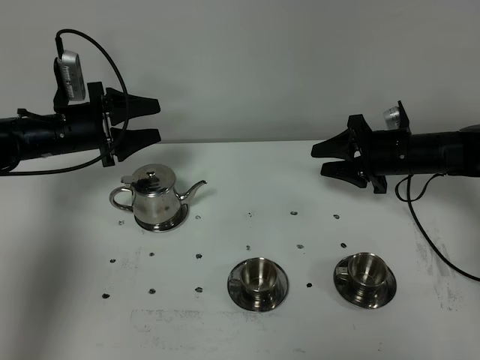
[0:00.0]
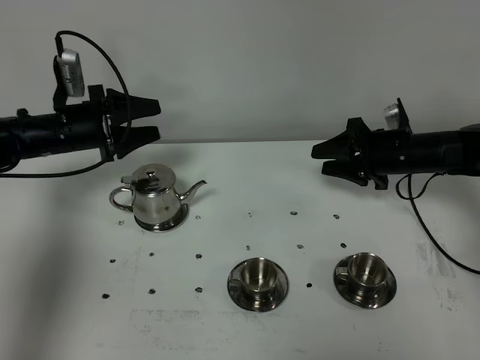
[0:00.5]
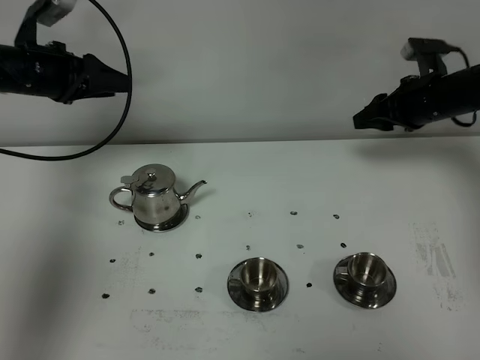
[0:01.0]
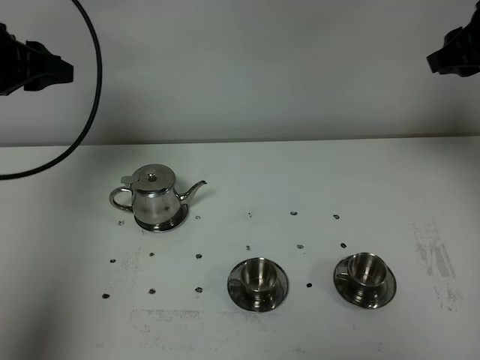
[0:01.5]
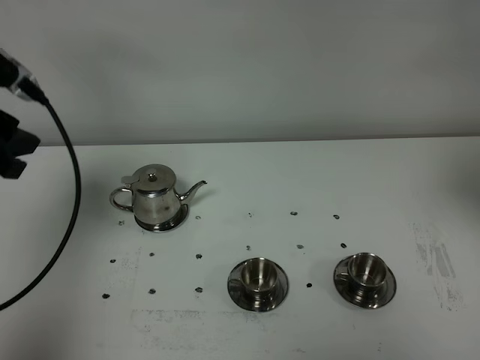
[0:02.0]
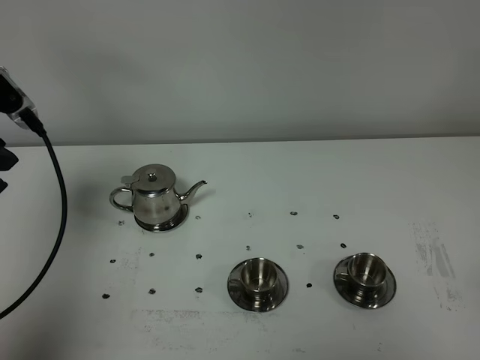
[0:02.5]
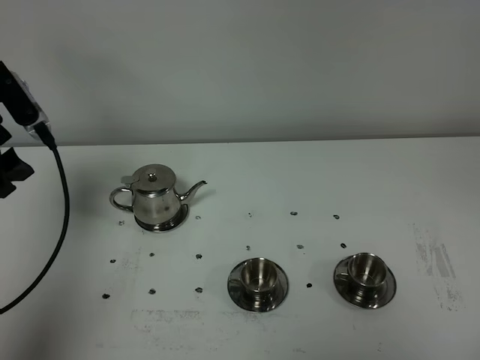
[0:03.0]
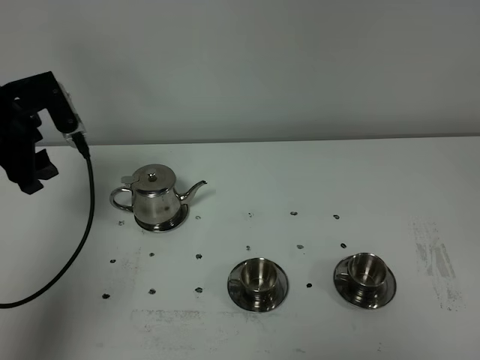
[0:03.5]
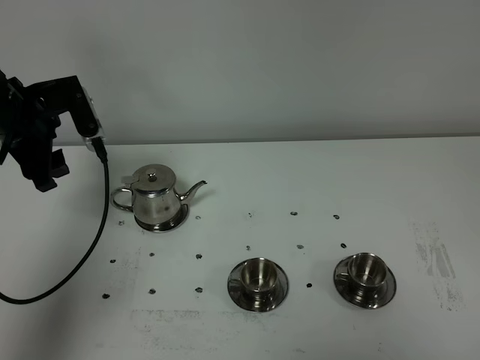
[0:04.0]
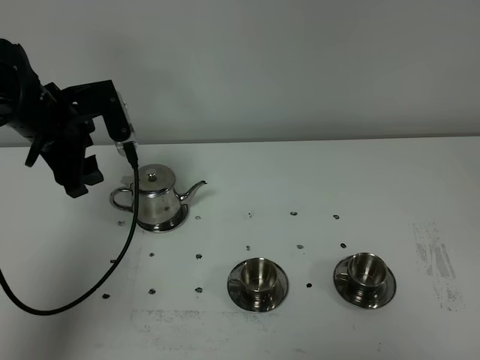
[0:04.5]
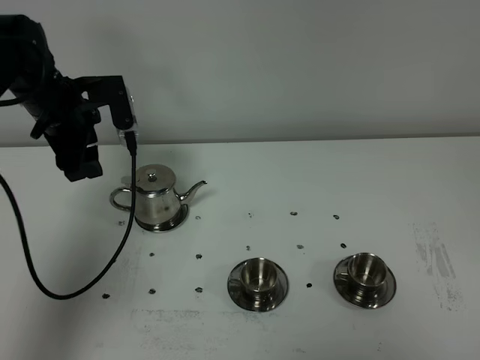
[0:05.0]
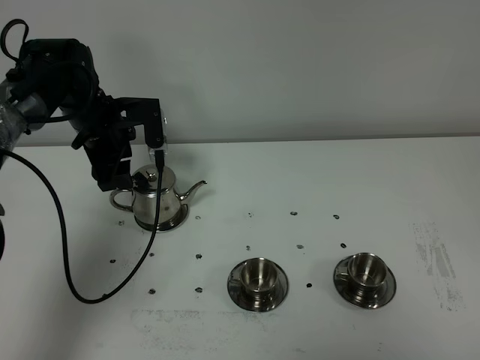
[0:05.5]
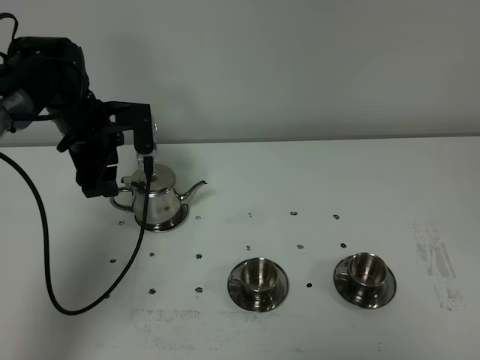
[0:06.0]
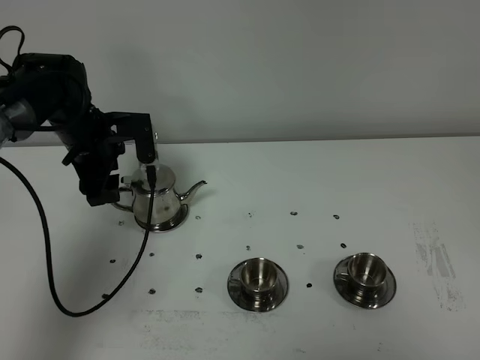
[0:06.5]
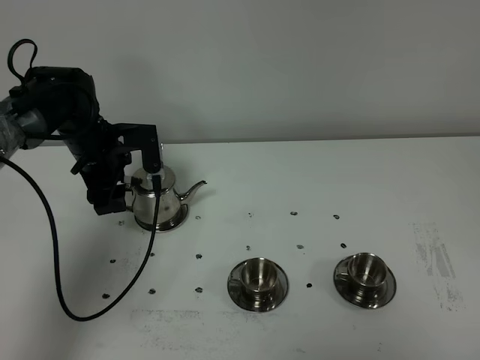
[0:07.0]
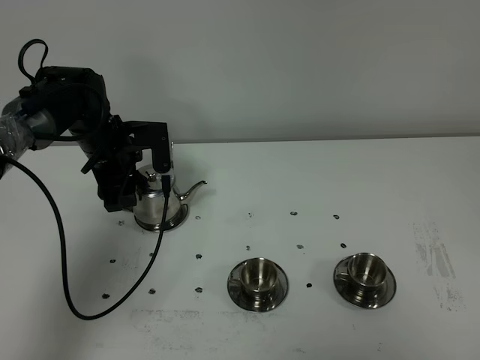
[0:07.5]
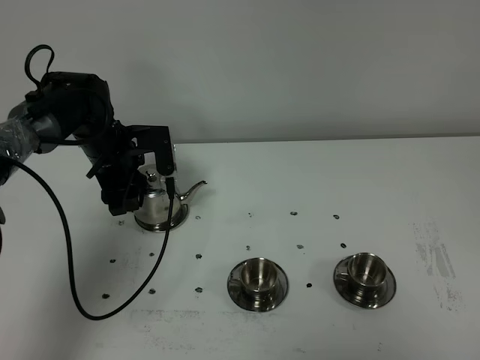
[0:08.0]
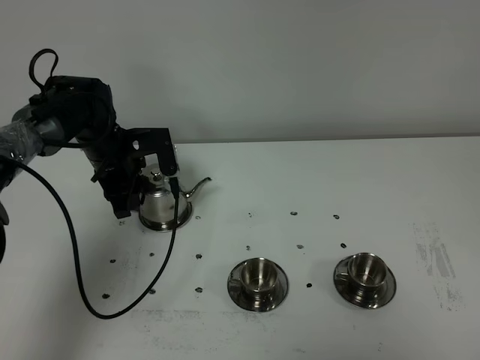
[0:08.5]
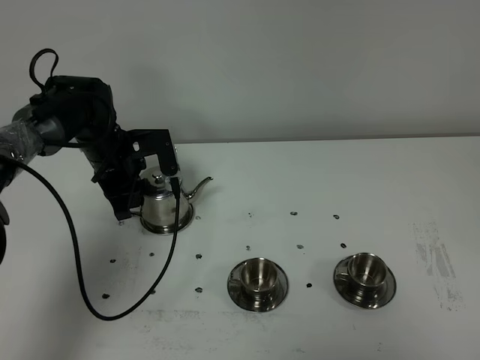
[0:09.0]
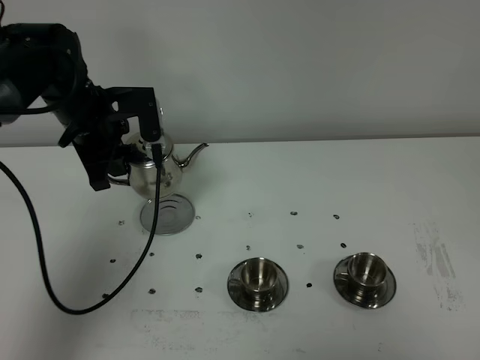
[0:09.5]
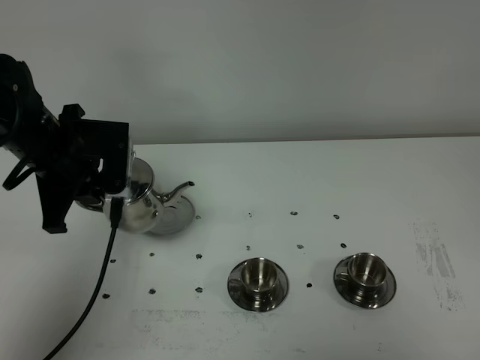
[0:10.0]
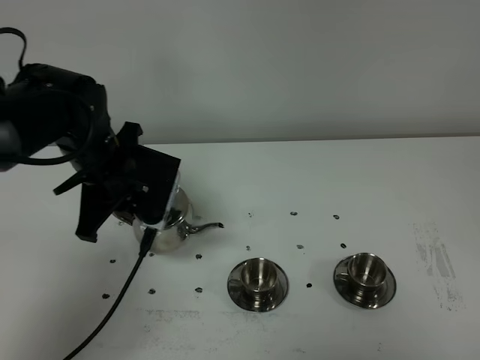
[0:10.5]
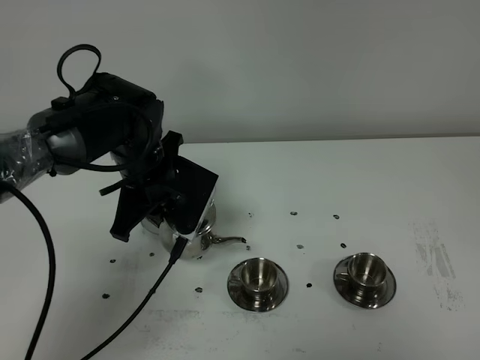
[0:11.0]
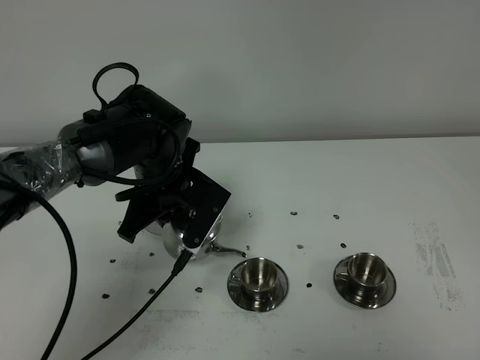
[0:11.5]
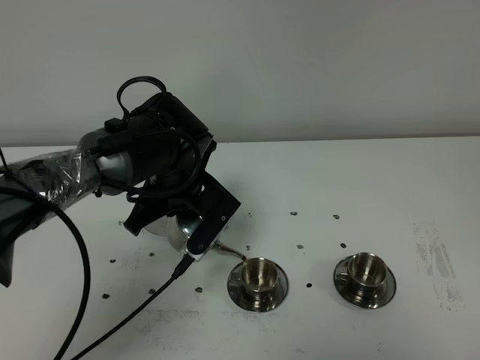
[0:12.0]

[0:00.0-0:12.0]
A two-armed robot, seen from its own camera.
Task of the whole recording: grasp the stainless steel teapot and pour the tea into the two stainless steel teacups one by one, put the stainless steel teapot back in its original place.
Step, 0:00.0 to 0:09.0: Pick up the teapot with the left gripper.
0:00.0 to 0:02.0: The left gripper goes about 25 cm upward and backward, and closes, while the right gripper heads upward and backward, covering about 35 cm.
0:02.0 to 0:04.0: The left gripper goes about 10 cm forward and downward, and opens its fingers. The right gripper travels backward and downward by about 30 cm.
0:04.0 to 0:06.0: The left gripper moves to the right, roughly 5 cm.
0:06.0 to 0:08.0: The left gripper moves some 5 cm.
0:08.0 to 0:10.0: The left gripper shifts approximately 15 cm backward and upward, and closes its fingers.
0:10.0 to 0:12.0: The left gripper is displaced to the right and downward by roughly 15 cm.

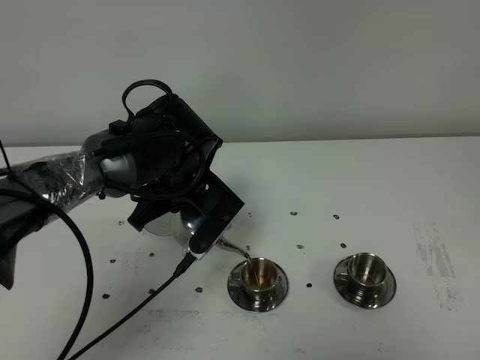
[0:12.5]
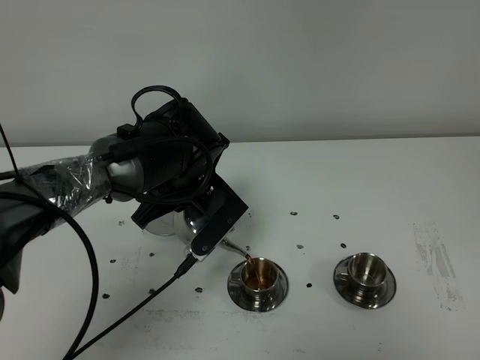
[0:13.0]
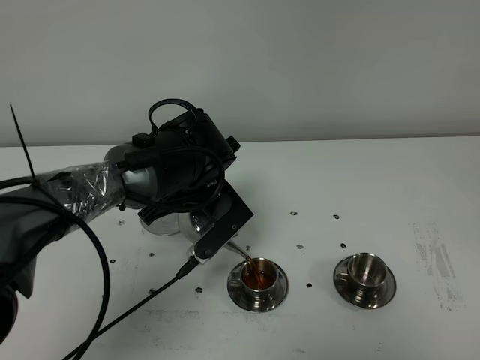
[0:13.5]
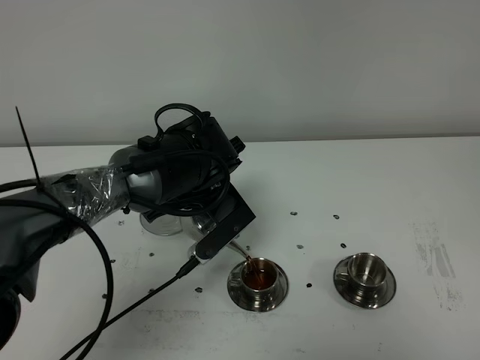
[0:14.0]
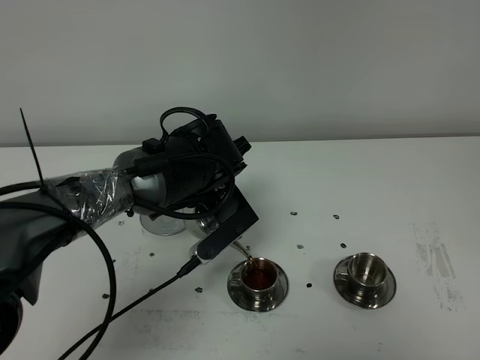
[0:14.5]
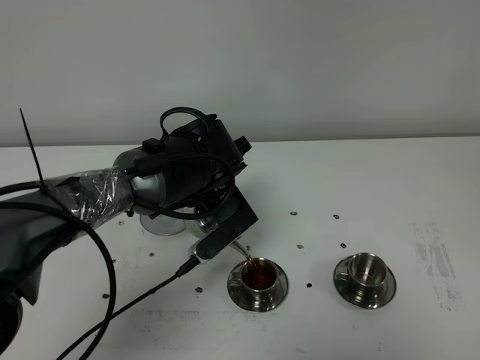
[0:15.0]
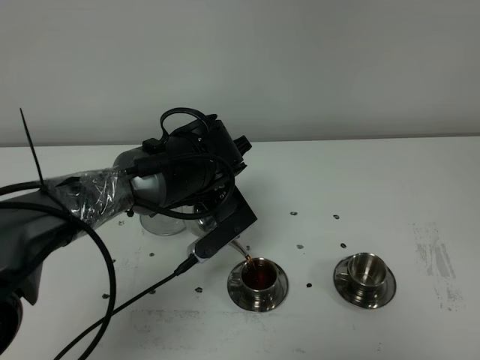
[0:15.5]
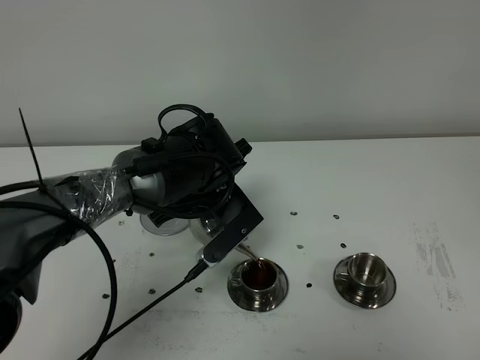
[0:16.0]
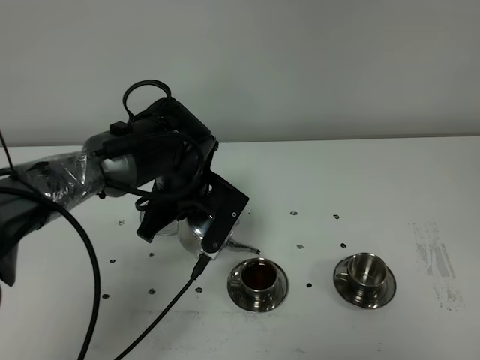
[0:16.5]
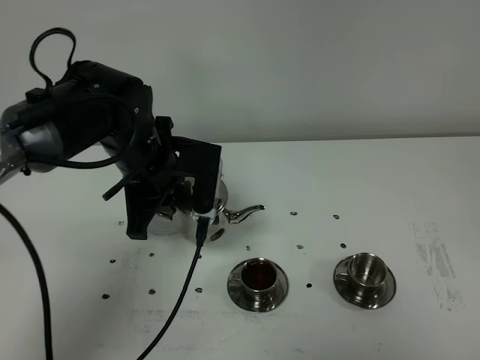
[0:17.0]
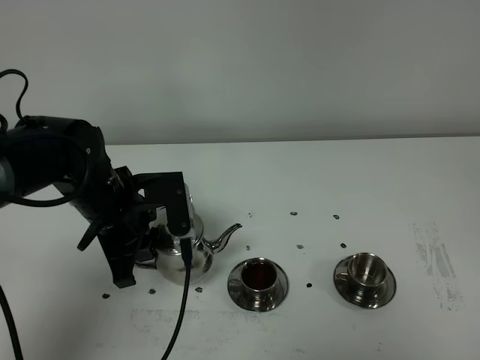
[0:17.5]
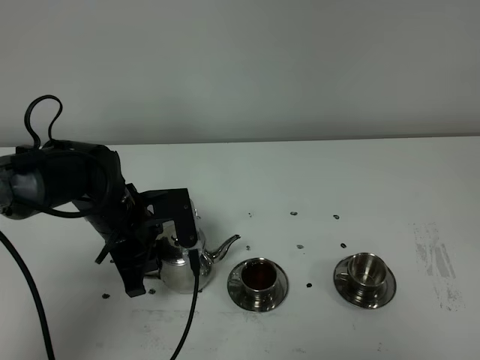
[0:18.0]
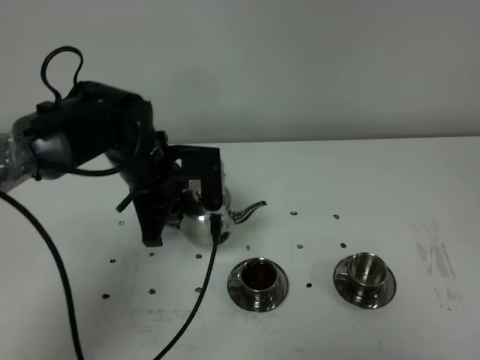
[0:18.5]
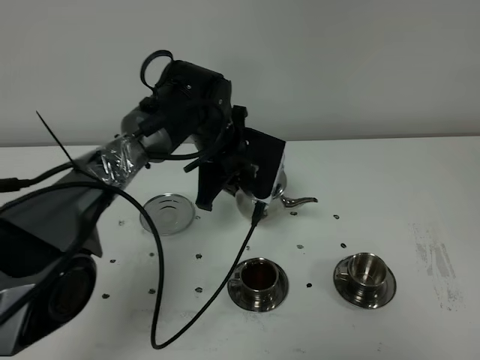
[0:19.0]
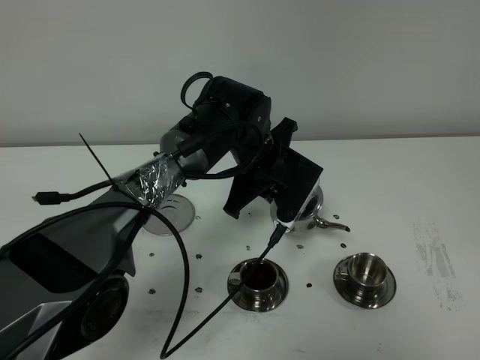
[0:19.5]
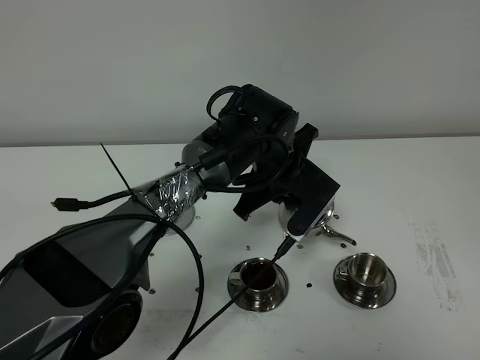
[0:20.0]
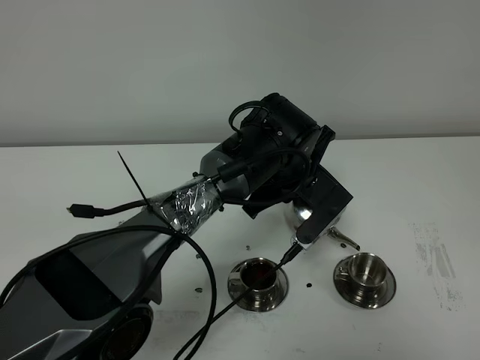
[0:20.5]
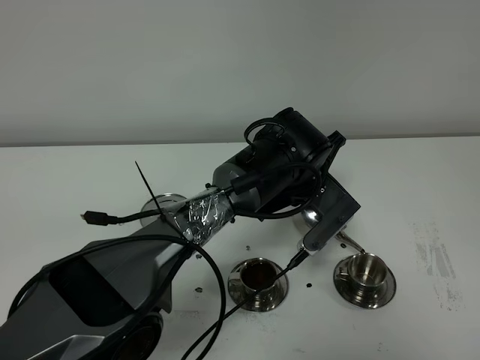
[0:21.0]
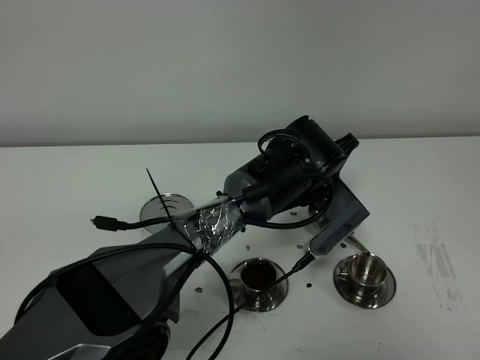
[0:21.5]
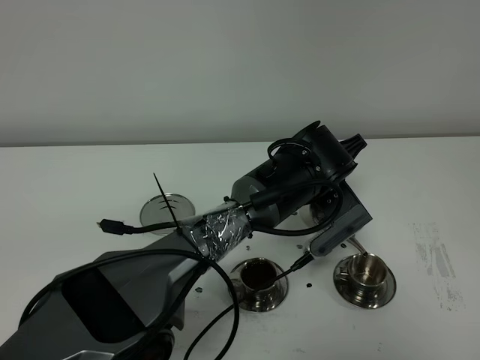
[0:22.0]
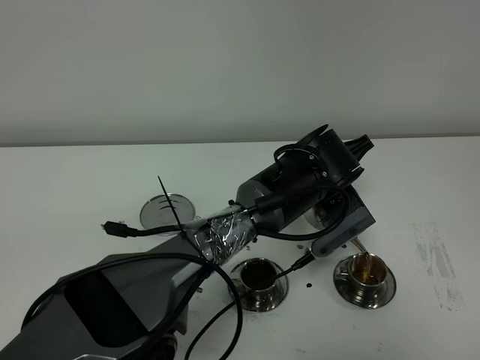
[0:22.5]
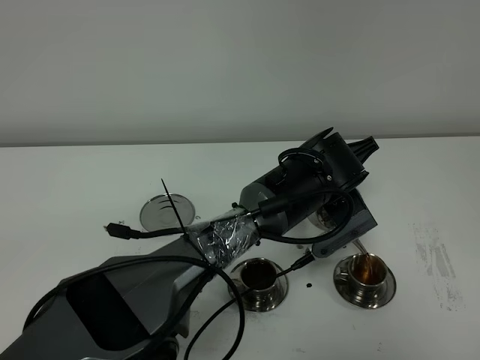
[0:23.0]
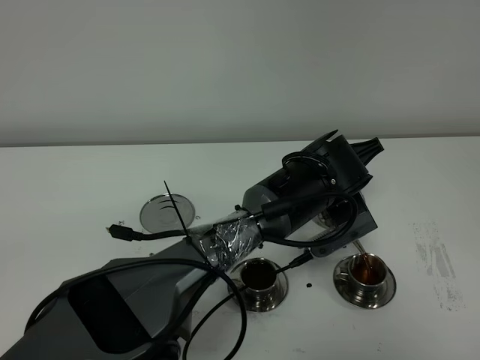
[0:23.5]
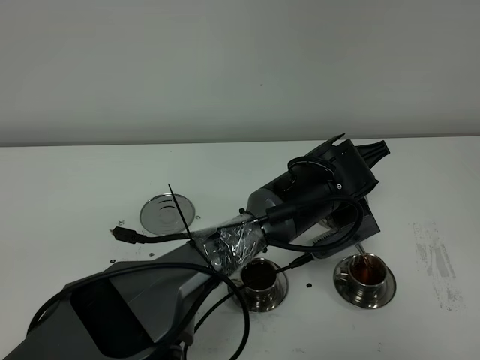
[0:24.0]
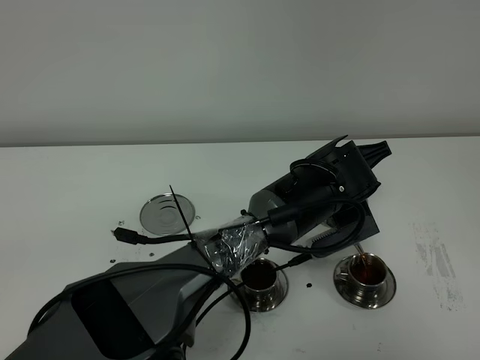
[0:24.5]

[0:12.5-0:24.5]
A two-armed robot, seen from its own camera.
Task of the whole recording: grasp the stainless steel teapot and pour the tea into the two stainless steel teacups one by one, put the stainless steel teapot back in its original place.
0:12.5 to 0:14.5: The grippers move only a little.
0:18.5 to 0:20.5: The left gripper moves to the right, roughly 15 cm.
0:22.5 to 0:24.5: The grippers stay close to where they were, moving slightly.

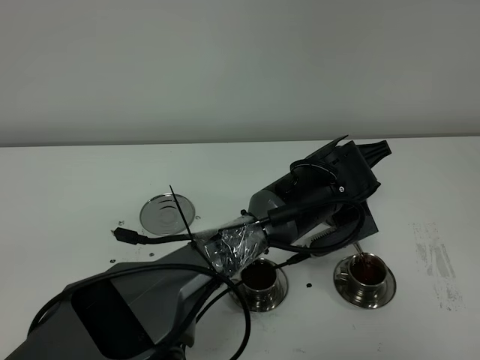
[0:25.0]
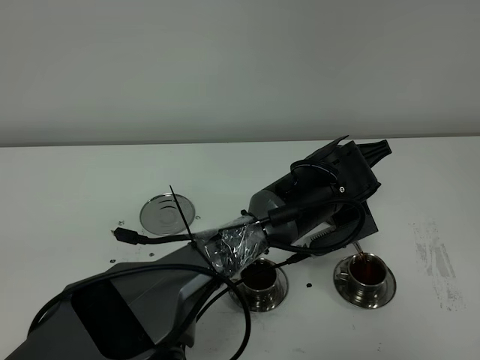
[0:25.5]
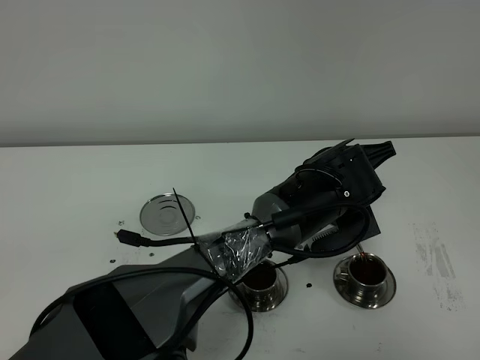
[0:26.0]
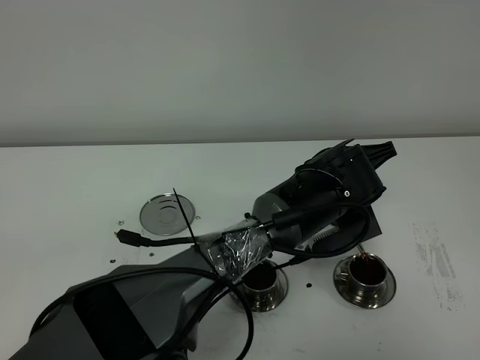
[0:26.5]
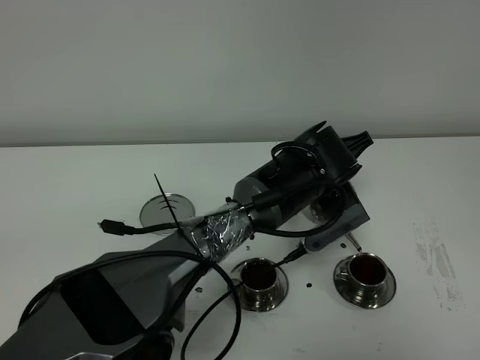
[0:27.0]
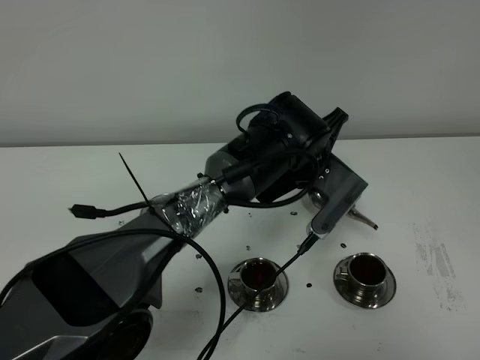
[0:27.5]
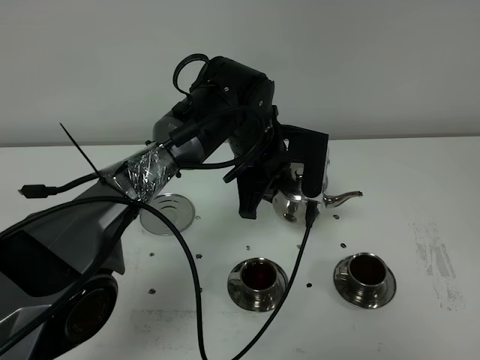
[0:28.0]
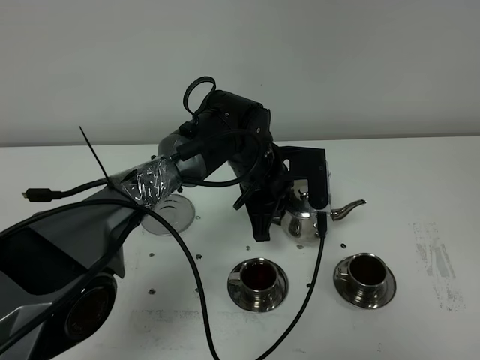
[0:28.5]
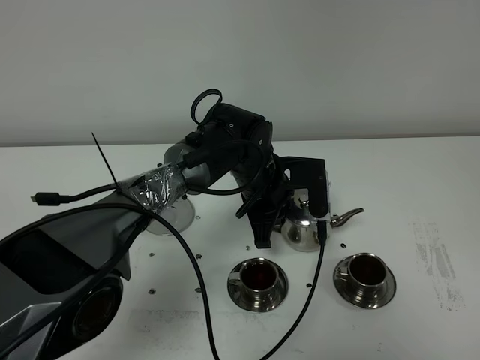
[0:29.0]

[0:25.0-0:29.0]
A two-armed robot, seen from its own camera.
Task of the whole recording: grasp the stainless steel teapot and pour the tea into the two stainless steel teacups one by one, put the stainless steel teapot back in its original place.
Step, 0:25.0 to 0:27.0: Pour tea into the teacup with the left gripper.
0:25.0 to 0:27.0: The grippers make only small movements.
0:27.0 to 0:29.0: The left gripper goes about 10 cm to the left.
